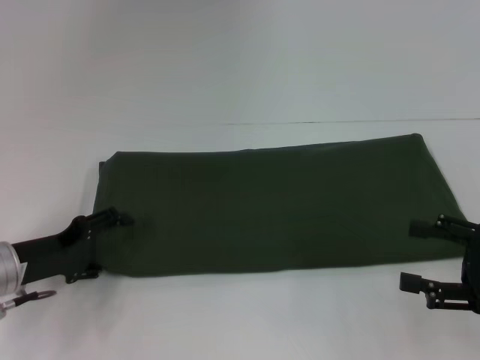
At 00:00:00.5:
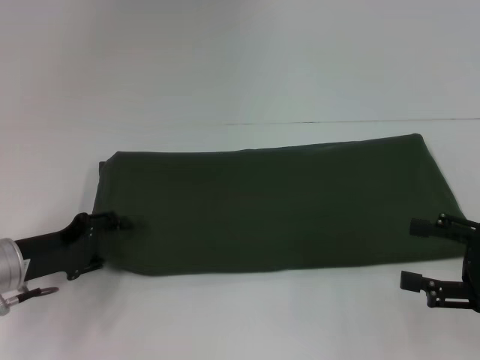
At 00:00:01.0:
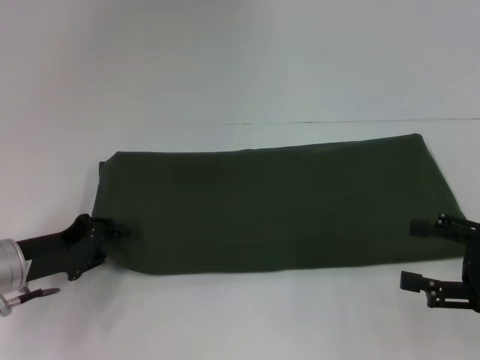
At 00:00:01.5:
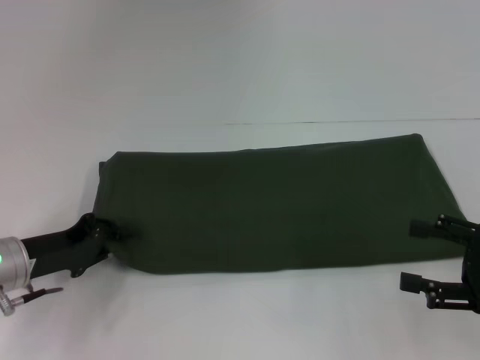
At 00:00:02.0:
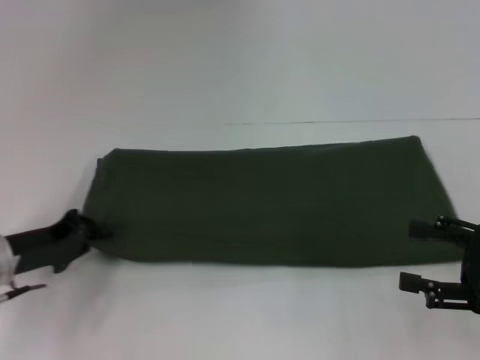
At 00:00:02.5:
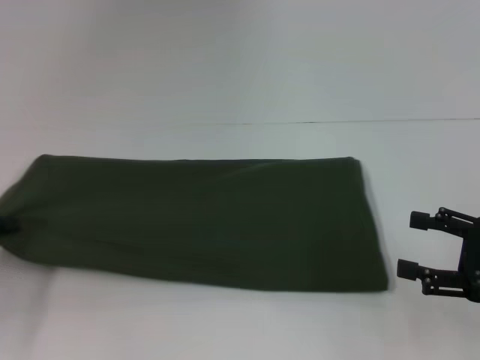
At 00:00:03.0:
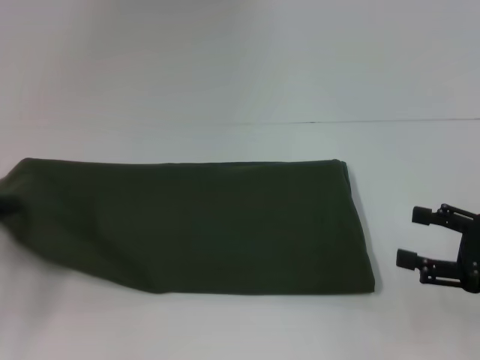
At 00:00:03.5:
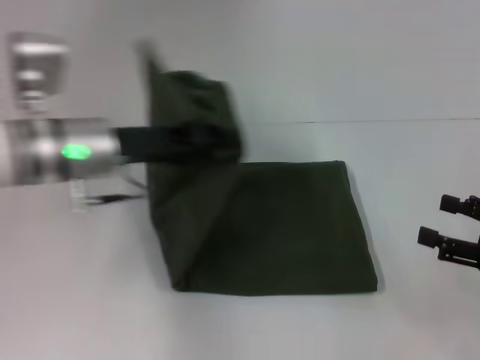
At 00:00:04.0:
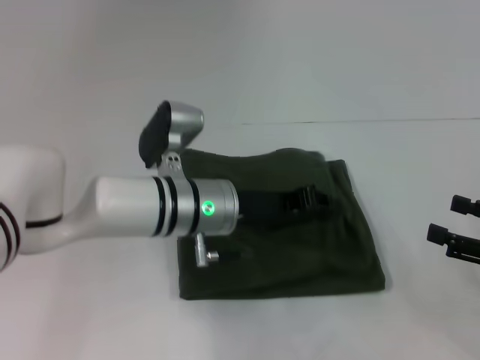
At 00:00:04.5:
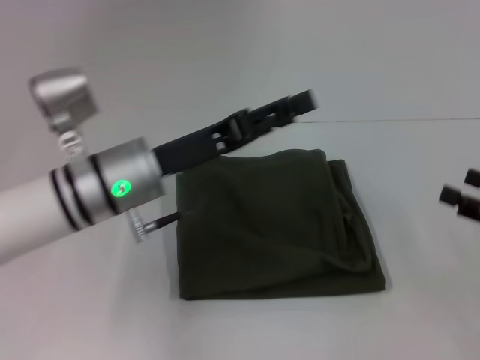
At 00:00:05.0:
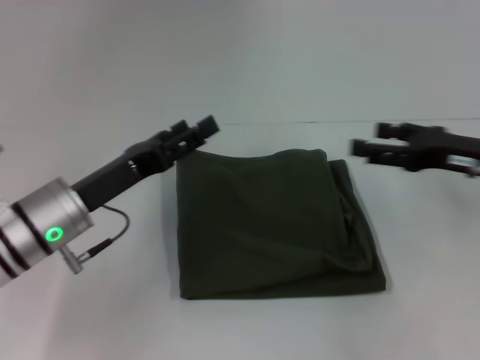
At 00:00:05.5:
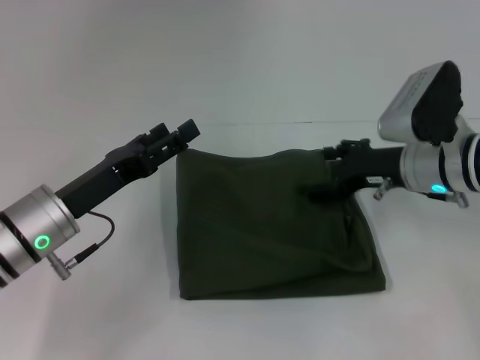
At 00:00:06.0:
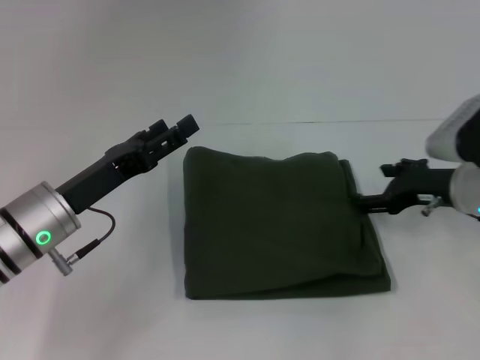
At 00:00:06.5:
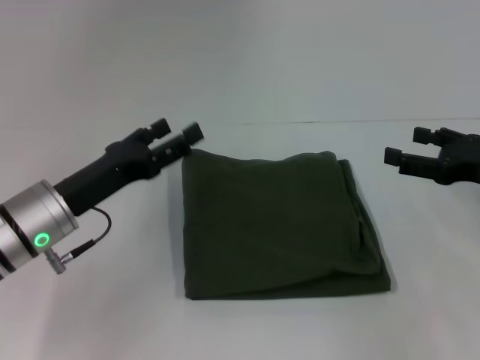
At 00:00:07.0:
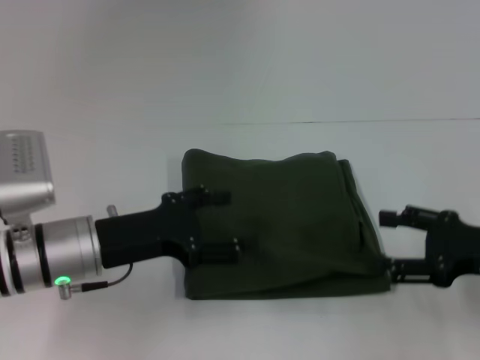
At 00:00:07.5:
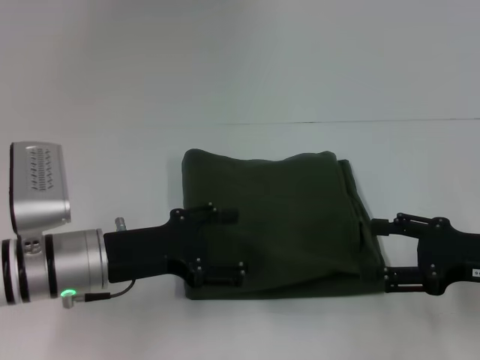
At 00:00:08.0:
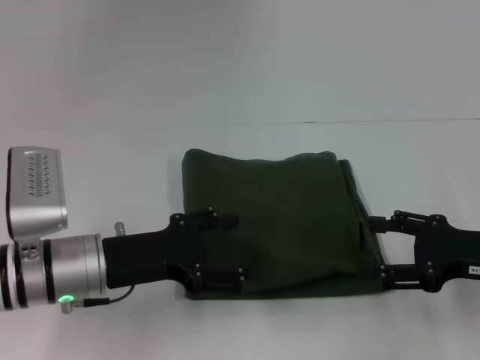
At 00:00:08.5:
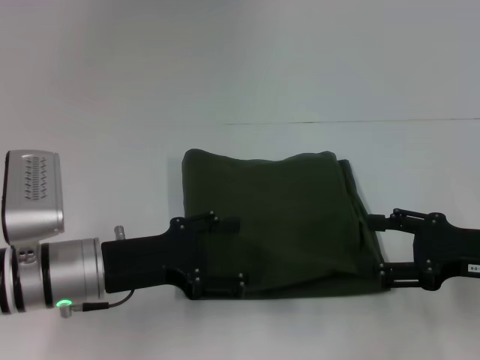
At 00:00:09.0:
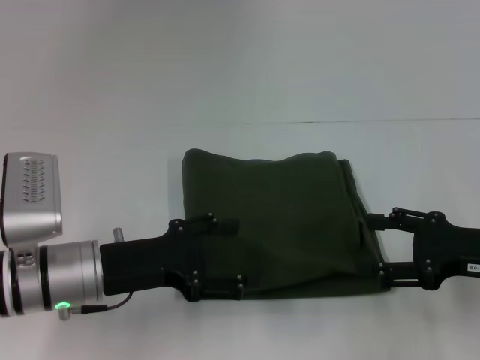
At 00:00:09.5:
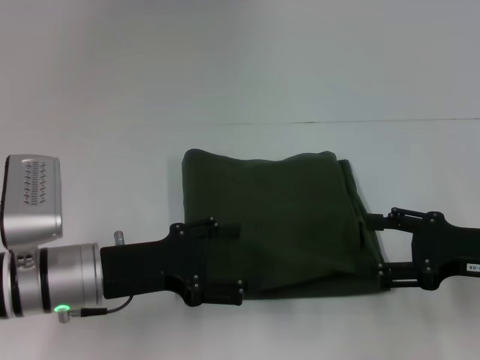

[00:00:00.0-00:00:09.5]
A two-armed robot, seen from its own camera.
Step, 00:00:00.0 to 00:00:04.0: Fold the clothes with your left hand.
00:00:00.0 to 00:00:02.0: The left gripper closes.
00:00:02.0 to 00:00:04.0: The left gripper heads to the right, covering some 20 cm.
00:00:04.0 to 00:00:05.5: The right gripper is displaced to the left and forward by approximately 20 cm. The left gripper shifts roughly 15 cm to the left, and opens up.
00:00:05.5 to 00:00:07.5: The right gripper goes about 15 cm backward and to the right.
00:00:07.5 to 00:00:09.5: The two grippers keep their place.
